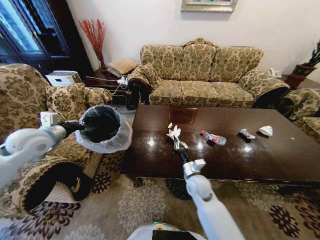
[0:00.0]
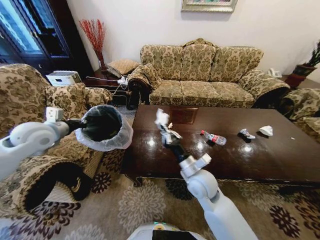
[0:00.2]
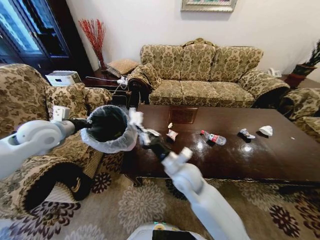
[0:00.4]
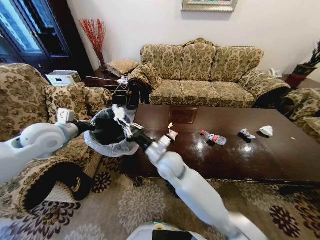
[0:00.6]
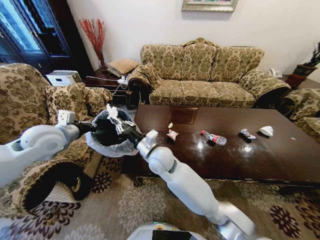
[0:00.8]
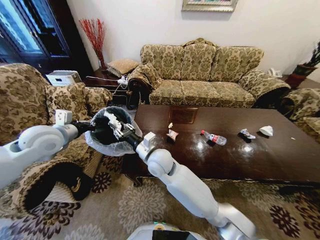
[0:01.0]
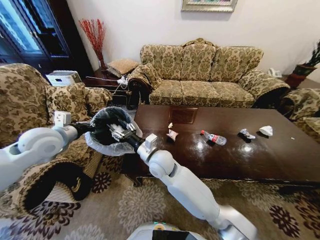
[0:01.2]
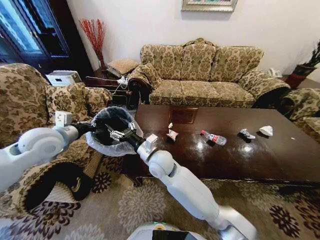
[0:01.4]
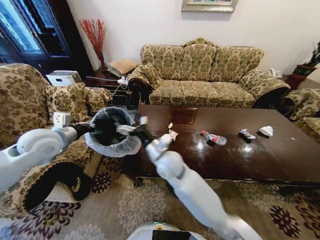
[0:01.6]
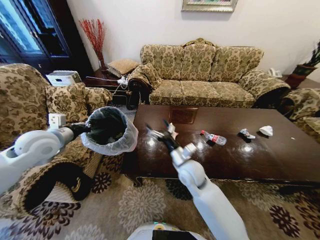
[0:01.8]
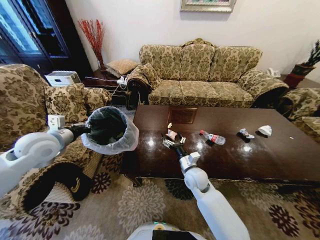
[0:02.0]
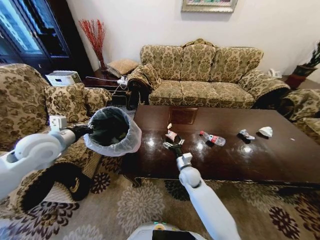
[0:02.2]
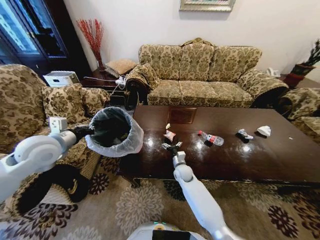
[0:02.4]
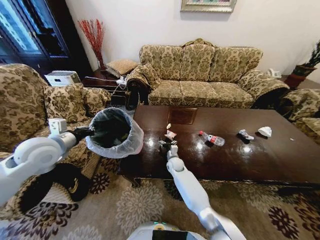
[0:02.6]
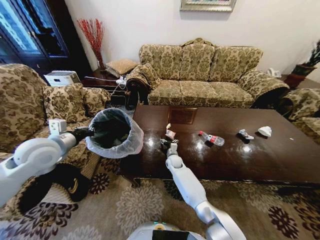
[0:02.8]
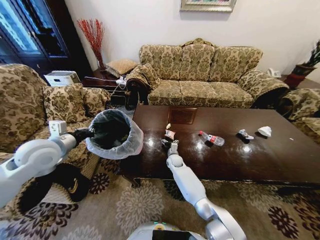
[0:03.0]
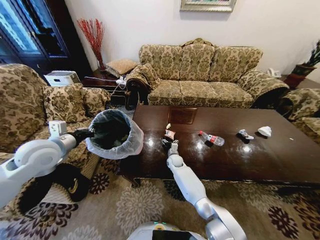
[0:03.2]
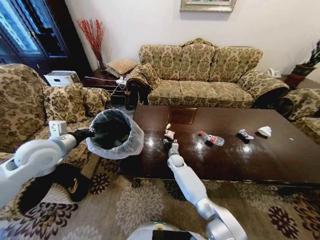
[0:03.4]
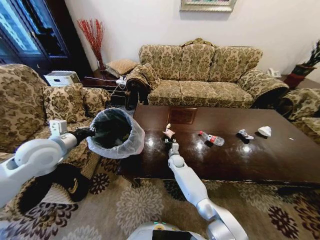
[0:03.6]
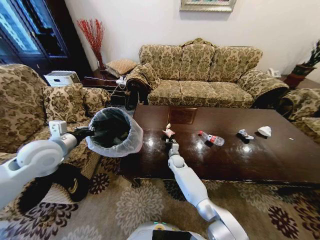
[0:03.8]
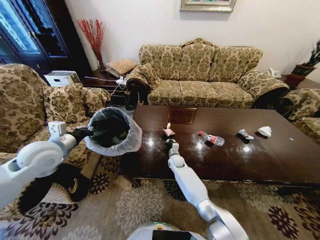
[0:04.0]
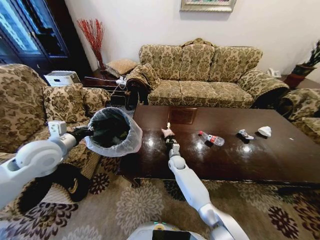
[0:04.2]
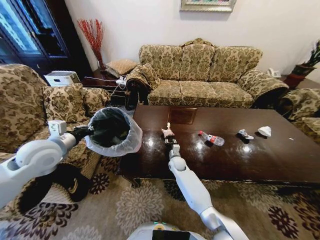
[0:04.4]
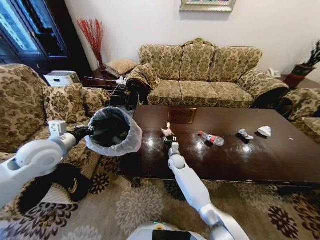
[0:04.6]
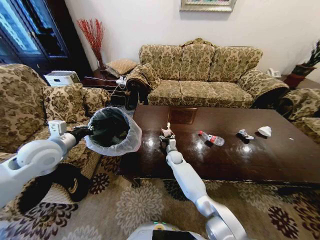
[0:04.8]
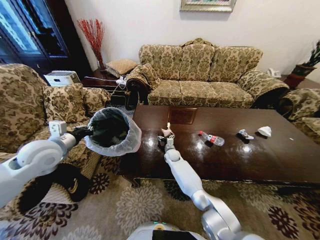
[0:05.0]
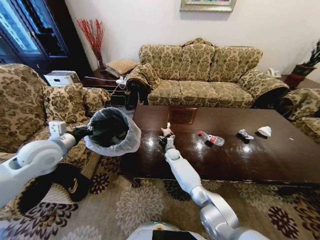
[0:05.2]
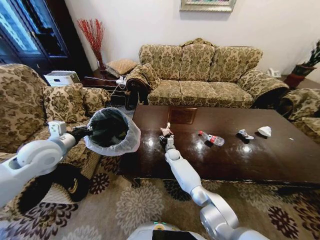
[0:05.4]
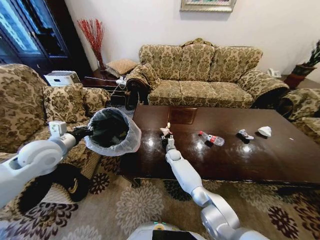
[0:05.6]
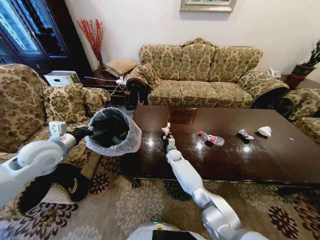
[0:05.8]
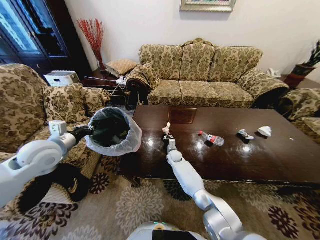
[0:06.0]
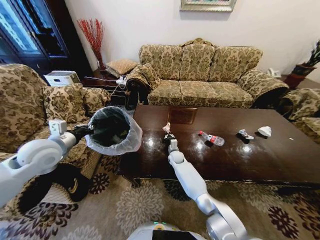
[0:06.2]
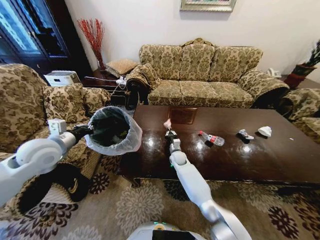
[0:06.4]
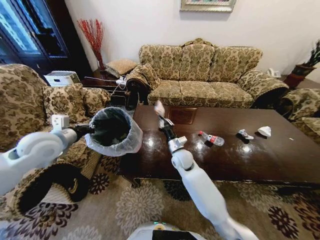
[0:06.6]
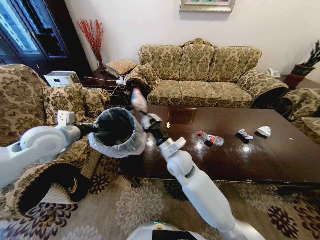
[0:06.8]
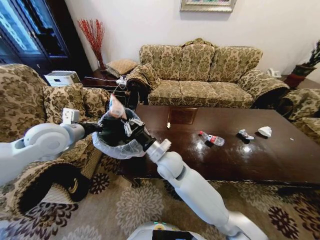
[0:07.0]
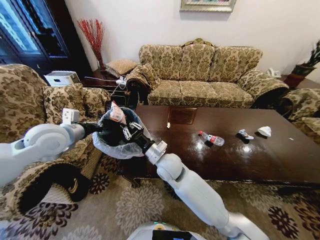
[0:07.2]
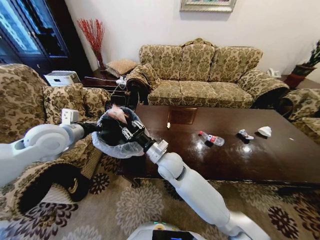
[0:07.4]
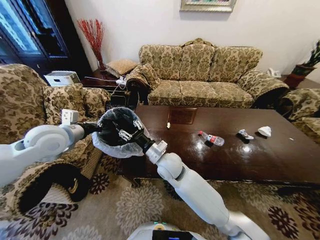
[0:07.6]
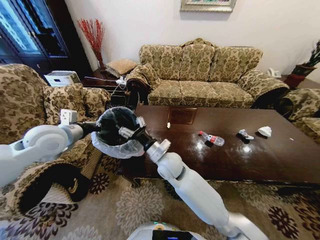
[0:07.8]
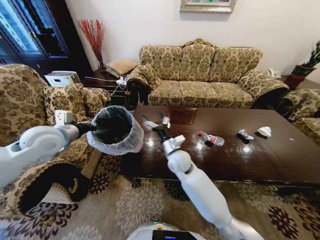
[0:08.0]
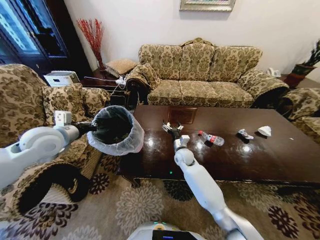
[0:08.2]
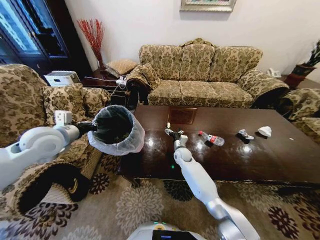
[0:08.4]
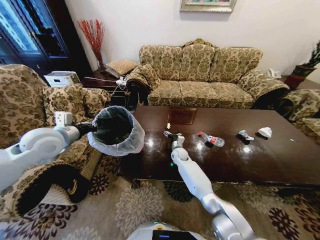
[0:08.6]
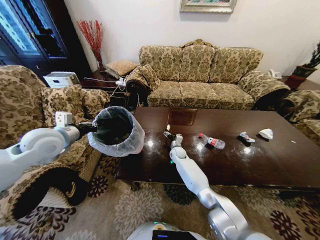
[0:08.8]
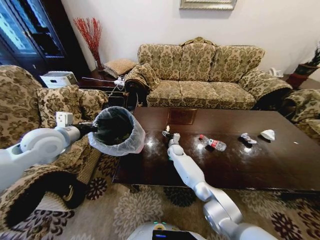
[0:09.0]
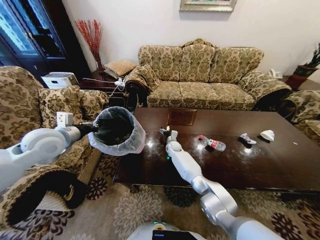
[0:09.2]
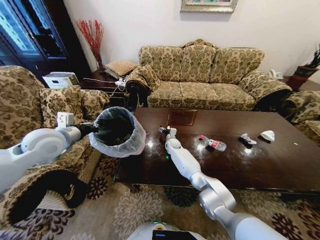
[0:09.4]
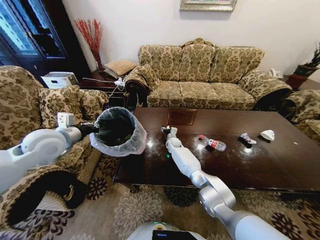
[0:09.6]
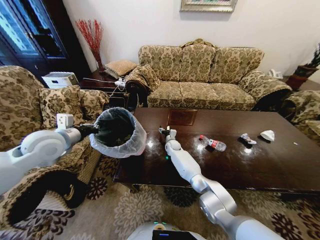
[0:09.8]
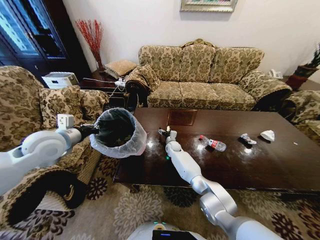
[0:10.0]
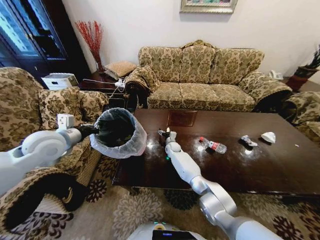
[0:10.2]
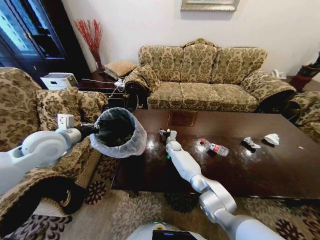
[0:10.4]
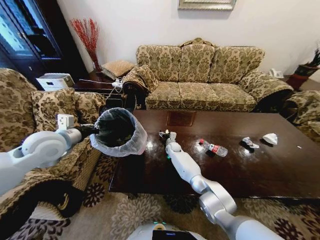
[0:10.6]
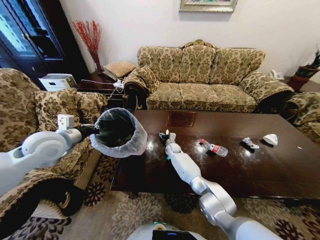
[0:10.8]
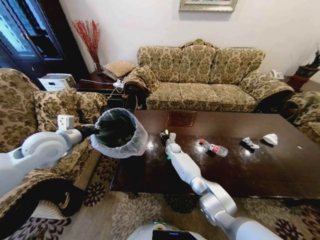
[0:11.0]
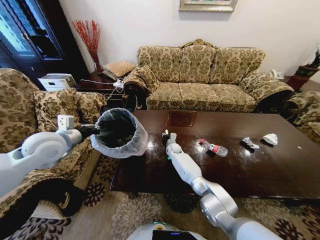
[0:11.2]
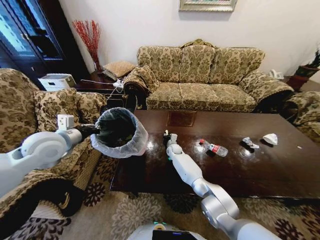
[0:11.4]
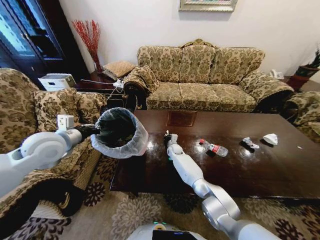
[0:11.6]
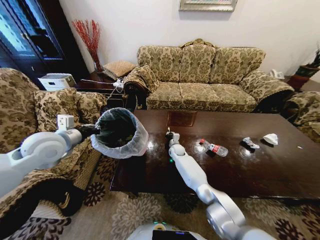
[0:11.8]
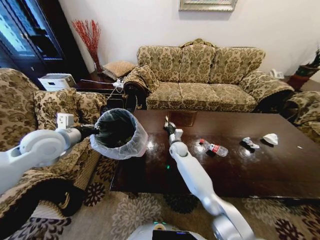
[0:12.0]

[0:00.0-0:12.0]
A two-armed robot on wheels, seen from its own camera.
Task of the whole recording: Move to the front of the table and place the trash on the table into the trash bin.
0:00.0 to 0:01.6: The left gripper ends up approximately 5 cm from where it was; the right gripper heads to the left and upward, covering about 20 cm, and opens up.
0:01.6 to 0:03.0: The right gripper goes roughly 30 cm downward and forward.
0:03.0 to 0:04.4: The right gripper closes.
0:04.4 to 0:06.0: The right gripper heads forward, covering roughly 5 cm, and opens and closes again.
0:06.0 to 0:07.6: The right gripper travels upward and backward by about 30 cm; the left gripper shifts by some 5 cm.
0:07.6 to 0:09.0: The right gripper goes roughly 30 cm forward and downward, and opens.
0:10.4 to 0:12.0: The right gripper shifts some 10 cm upward and backward, and closes up.

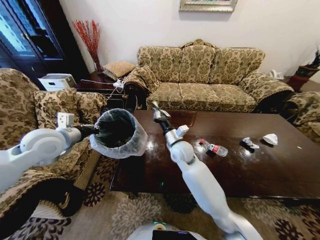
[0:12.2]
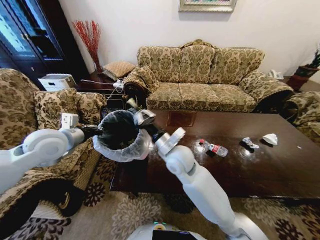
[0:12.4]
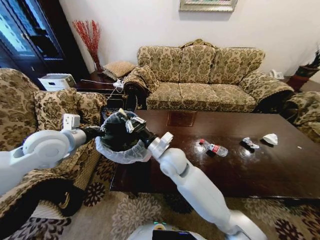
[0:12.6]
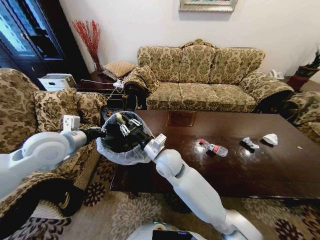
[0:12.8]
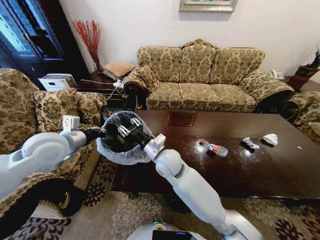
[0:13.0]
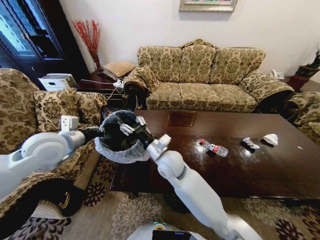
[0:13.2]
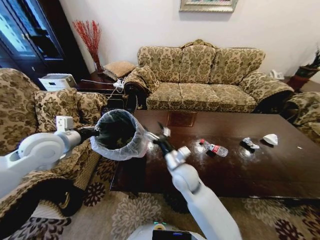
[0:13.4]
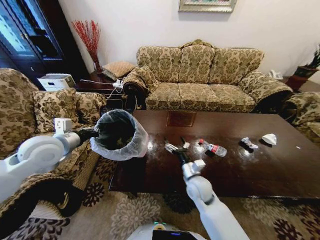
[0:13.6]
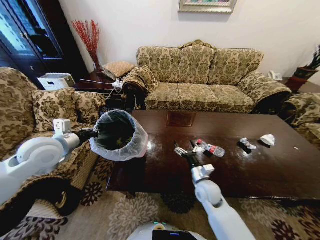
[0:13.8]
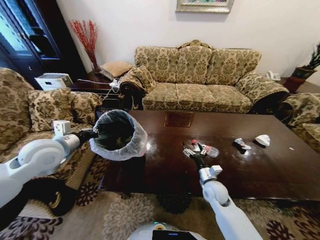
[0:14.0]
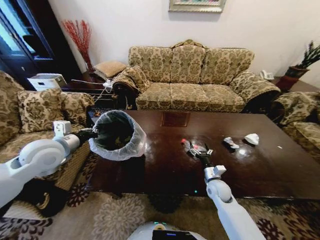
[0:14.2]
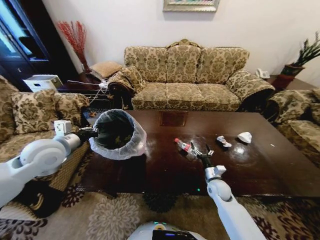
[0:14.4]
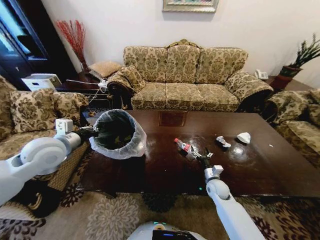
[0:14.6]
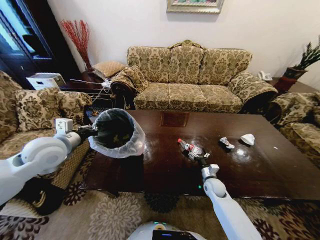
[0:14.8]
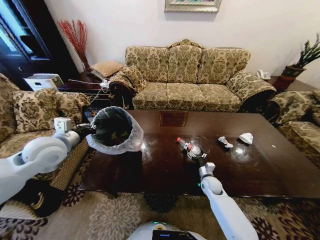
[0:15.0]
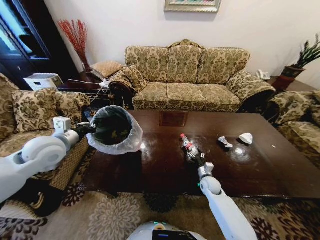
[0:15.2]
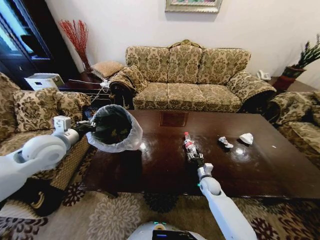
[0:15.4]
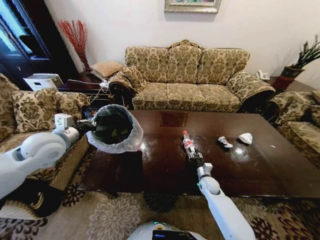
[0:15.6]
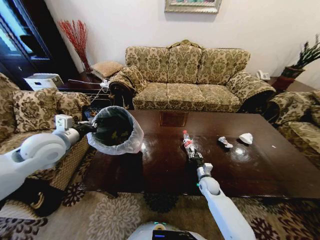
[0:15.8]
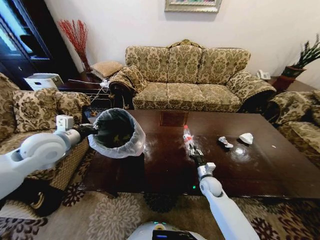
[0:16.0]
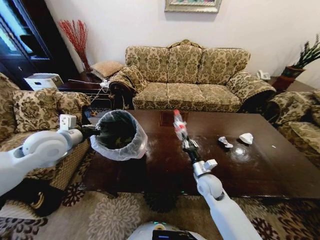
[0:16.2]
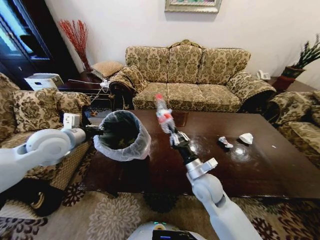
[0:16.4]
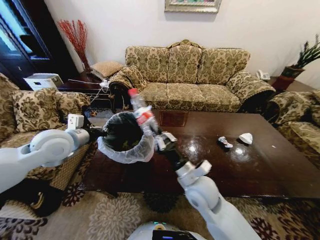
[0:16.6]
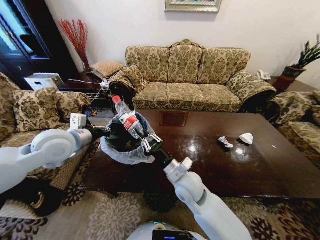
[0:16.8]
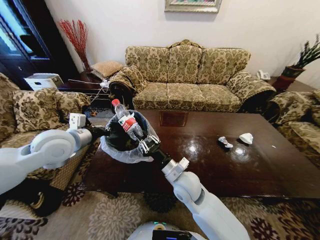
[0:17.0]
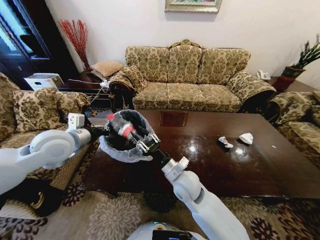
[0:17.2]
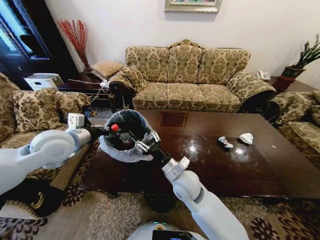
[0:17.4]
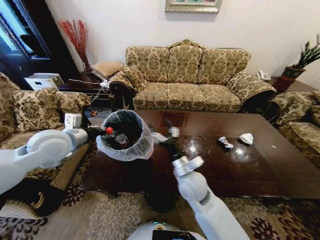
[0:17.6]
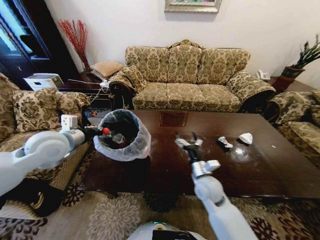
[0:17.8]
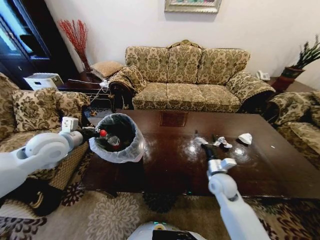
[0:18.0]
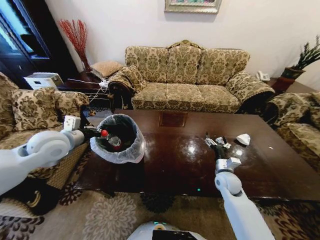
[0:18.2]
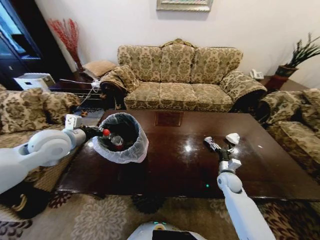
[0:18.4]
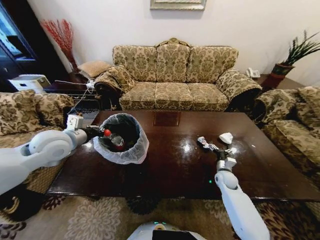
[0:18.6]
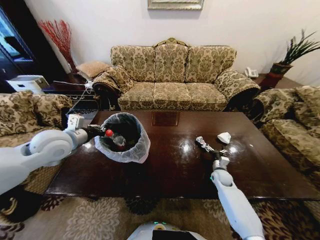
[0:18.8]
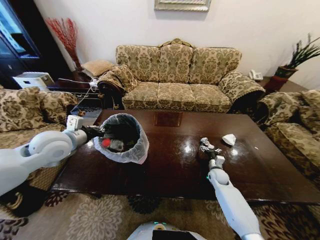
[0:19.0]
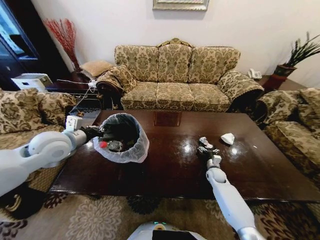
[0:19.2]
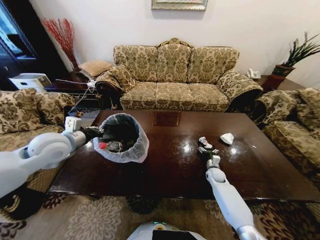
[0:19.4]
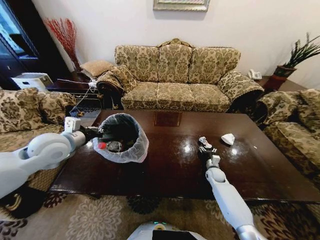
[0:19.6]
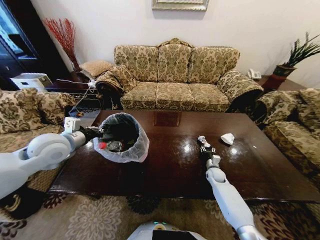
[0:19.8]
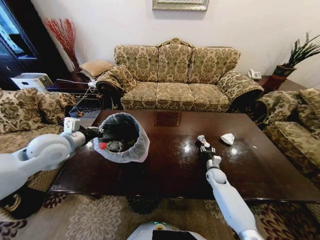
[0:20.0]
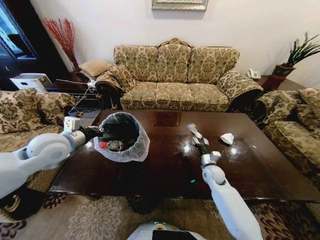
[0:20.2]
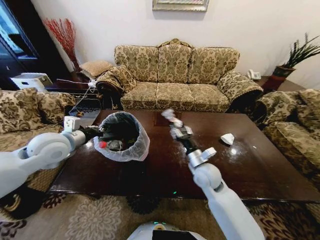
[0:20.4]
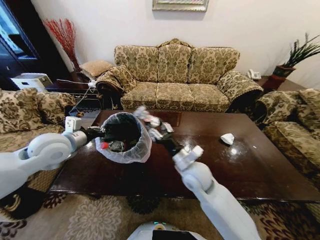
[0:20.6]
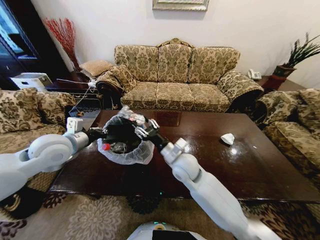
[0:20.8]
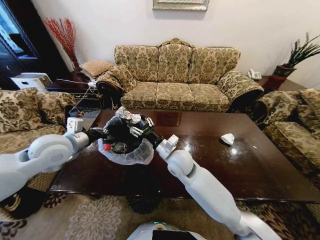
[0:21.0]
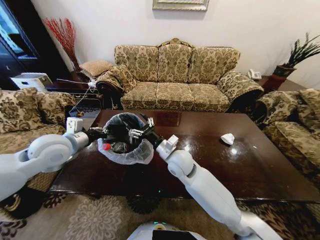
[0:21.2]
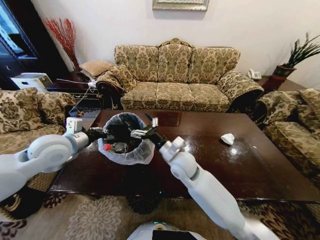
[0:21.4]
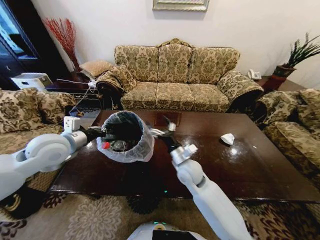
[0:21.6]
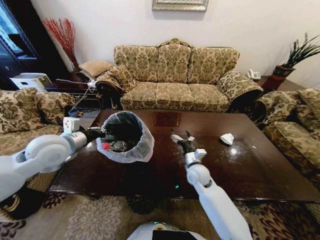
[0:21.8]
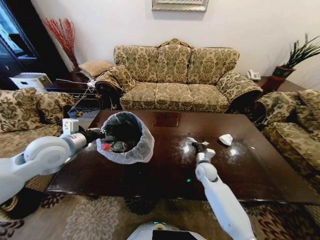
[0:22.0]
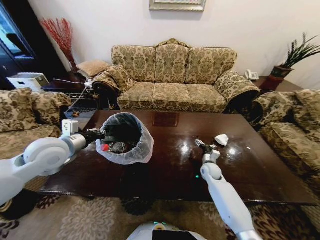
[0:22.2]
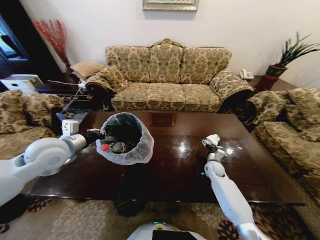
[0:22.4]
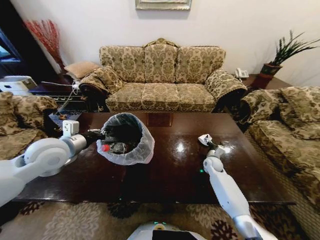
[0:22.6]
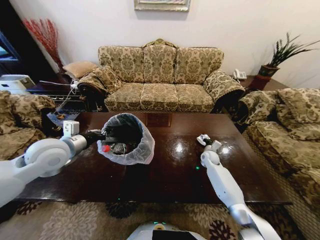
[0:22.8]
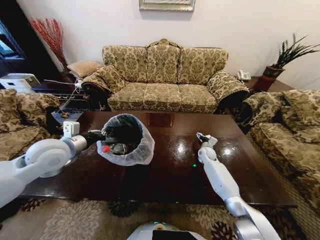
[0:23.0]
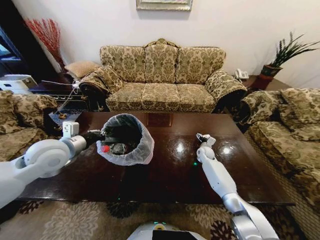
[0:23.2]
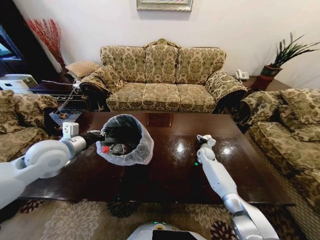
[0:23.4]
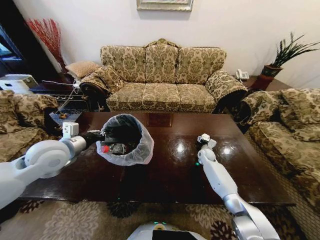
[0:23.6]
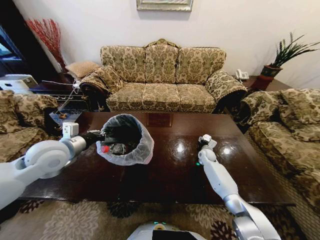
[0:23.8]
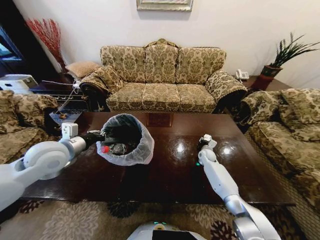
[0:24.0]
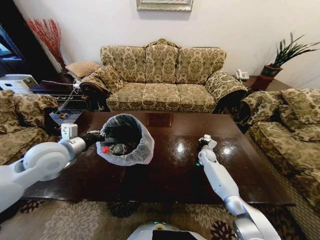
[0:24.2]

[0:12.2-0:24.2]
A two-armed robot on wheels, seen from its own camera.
Task of the whole recording: Move to the front of the table and place the trash on the table into the trash bin.
0:12.2 to 0:13.8: The right gripper is displaced downward, to the right and backward by about 20 cm, and opens up.
0:13.8 to 0:15.2: The right gripper is displaced downward, to the right and forward by some 15 cm.
0:15.2 to 0:16.6: The right gripper goes some 30 cm upward, to the left and backward, and closes up.
0:16.6 to 0:18.2: The right gripper moves to the right, downward and forward, roughly 25 cm, and opens its fingers.
0:18.2 to 0:19.8: The right gripper heads downward and forward, covering approximately 15 cm, and closes its fingers.
0:19.8 to 0:21.2: The right gripper shifts roughly 35 cm to the left and upward.
0:21.2 to 0:22.6: The right gripper goes roughly 35 cm to the right, downward and forward.
0:22.6 to 0:24.2: The right gripper is displaced forward by roughly 5 cm, and closes up.
